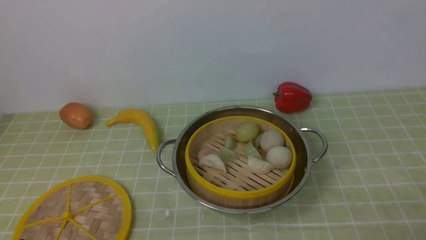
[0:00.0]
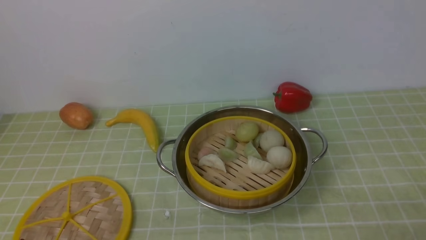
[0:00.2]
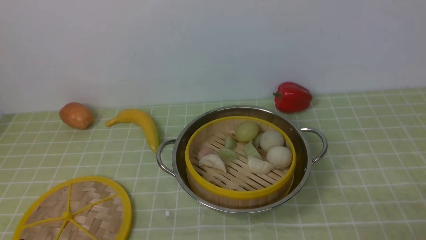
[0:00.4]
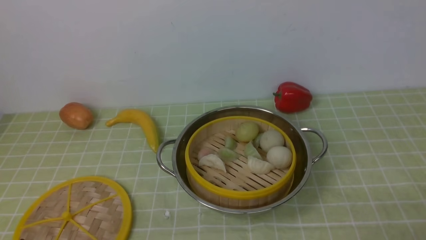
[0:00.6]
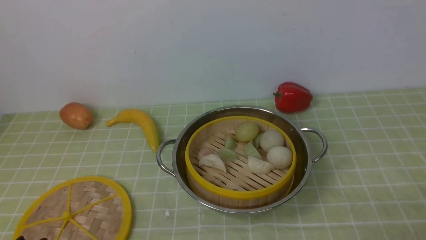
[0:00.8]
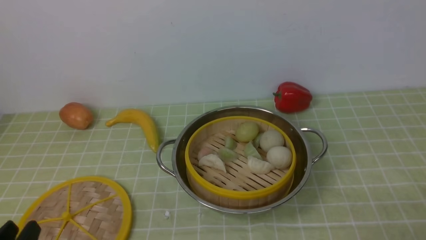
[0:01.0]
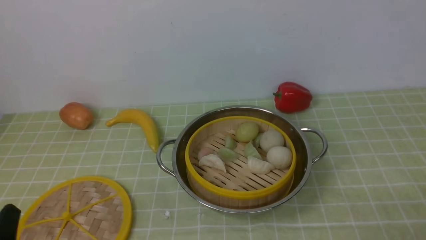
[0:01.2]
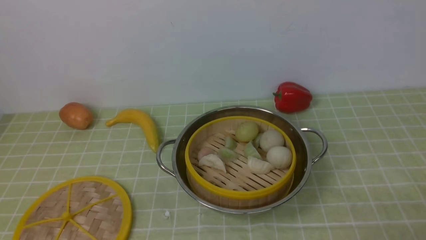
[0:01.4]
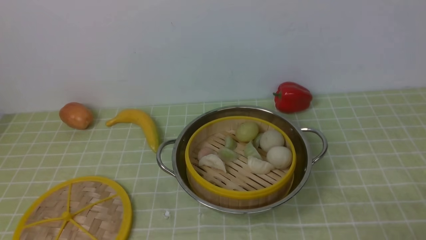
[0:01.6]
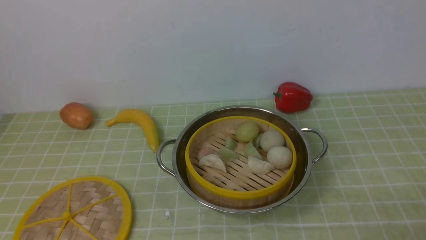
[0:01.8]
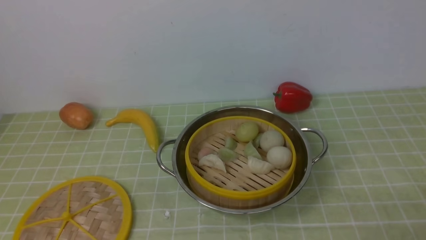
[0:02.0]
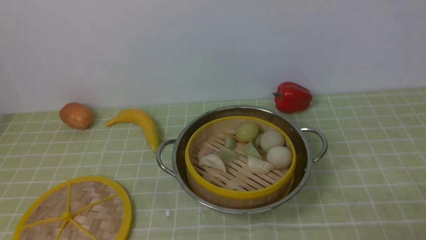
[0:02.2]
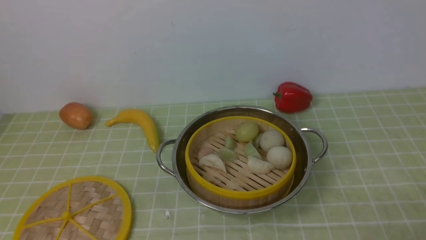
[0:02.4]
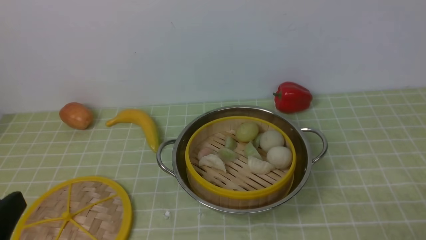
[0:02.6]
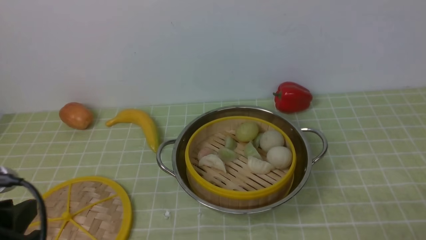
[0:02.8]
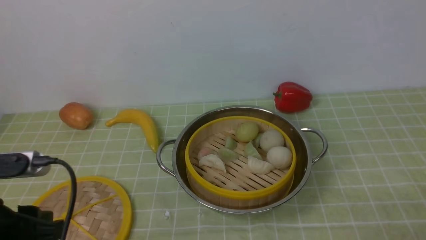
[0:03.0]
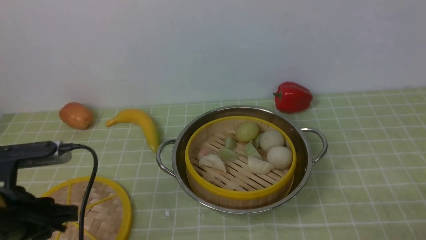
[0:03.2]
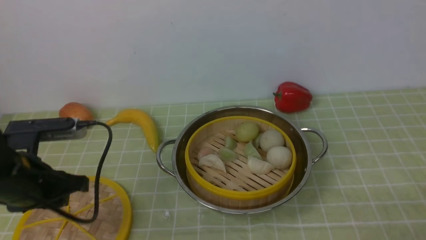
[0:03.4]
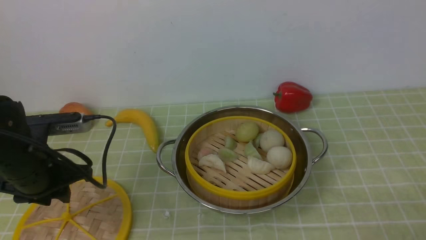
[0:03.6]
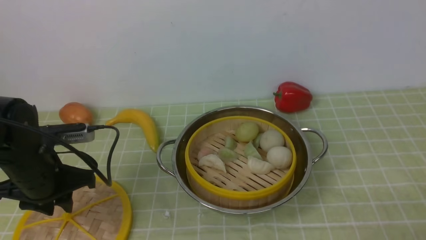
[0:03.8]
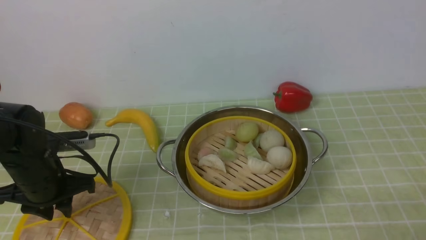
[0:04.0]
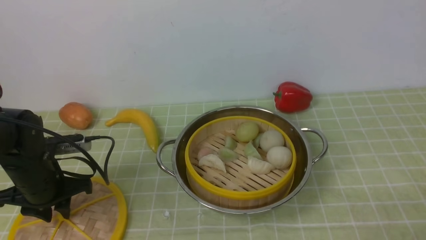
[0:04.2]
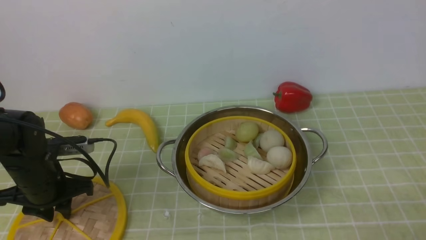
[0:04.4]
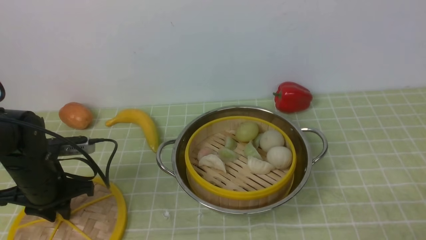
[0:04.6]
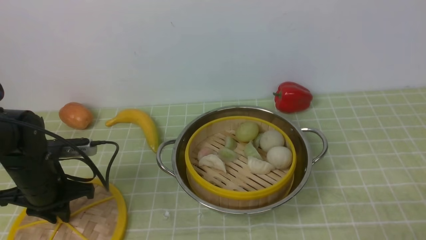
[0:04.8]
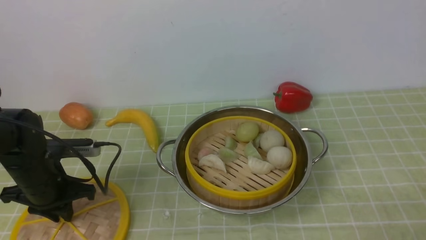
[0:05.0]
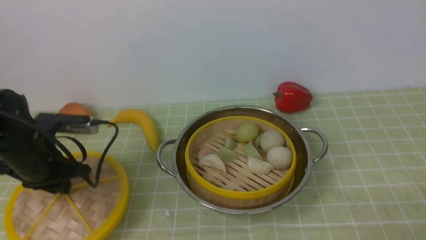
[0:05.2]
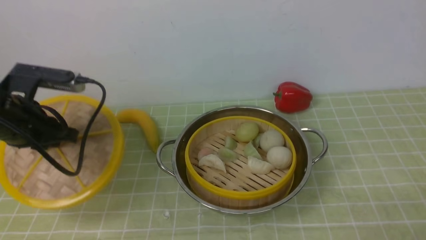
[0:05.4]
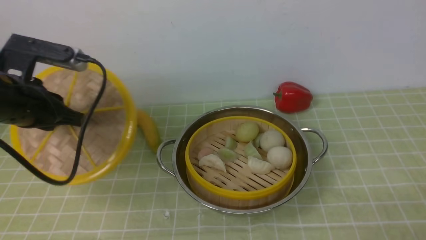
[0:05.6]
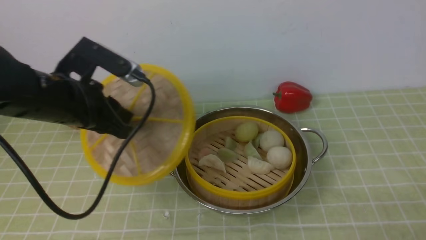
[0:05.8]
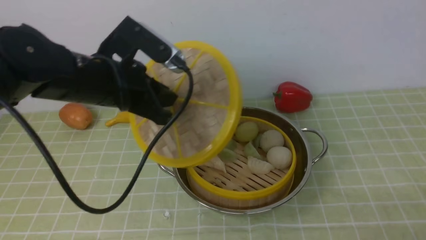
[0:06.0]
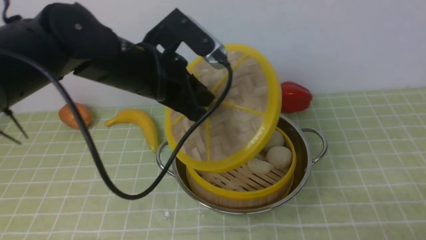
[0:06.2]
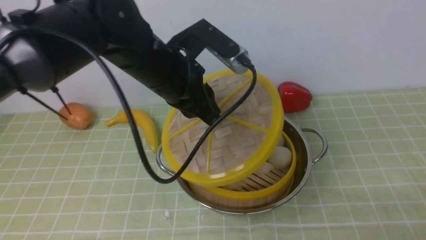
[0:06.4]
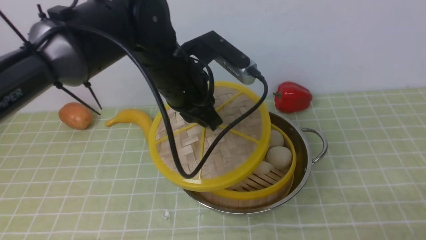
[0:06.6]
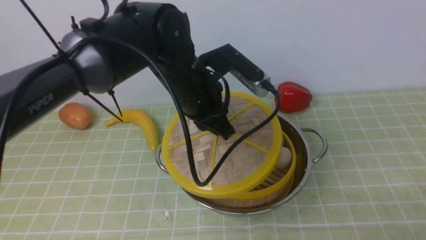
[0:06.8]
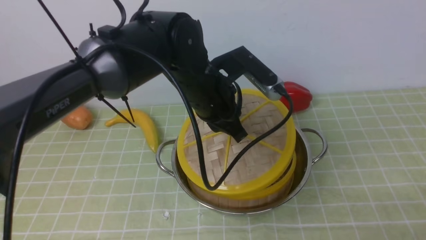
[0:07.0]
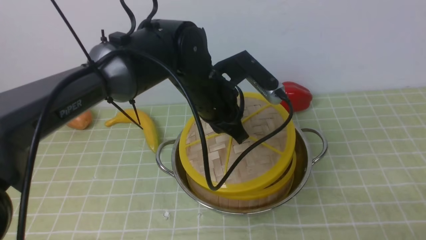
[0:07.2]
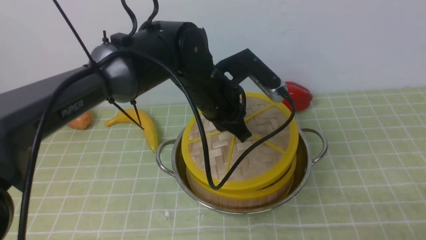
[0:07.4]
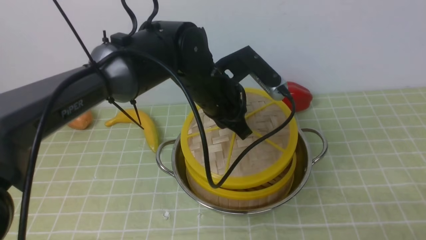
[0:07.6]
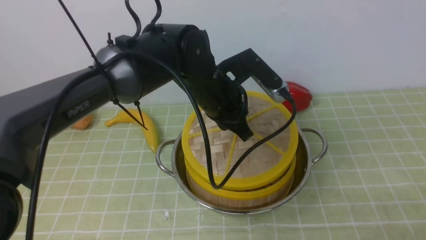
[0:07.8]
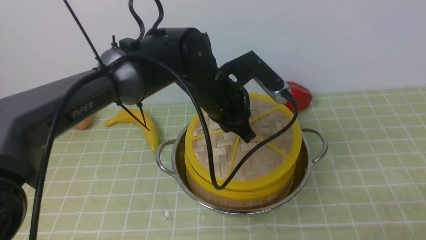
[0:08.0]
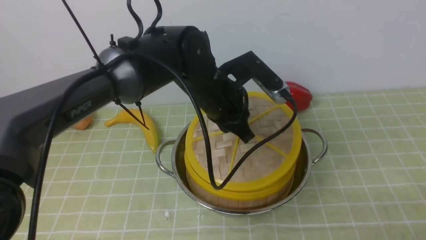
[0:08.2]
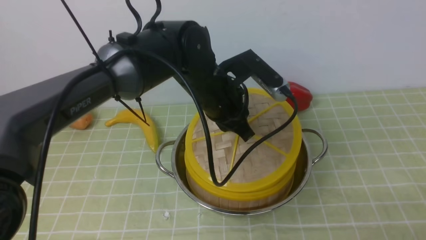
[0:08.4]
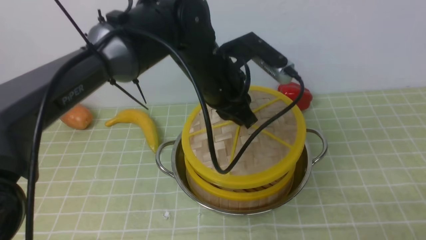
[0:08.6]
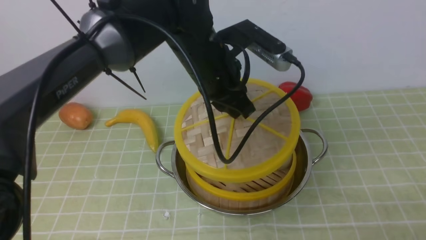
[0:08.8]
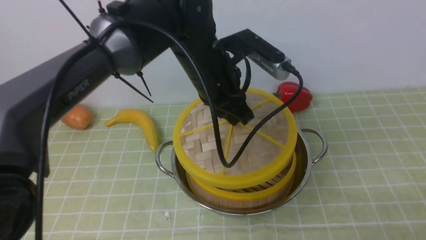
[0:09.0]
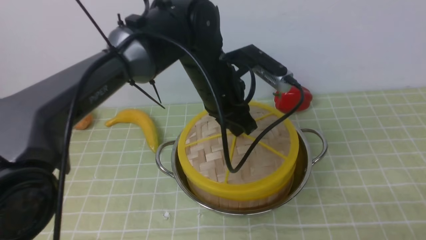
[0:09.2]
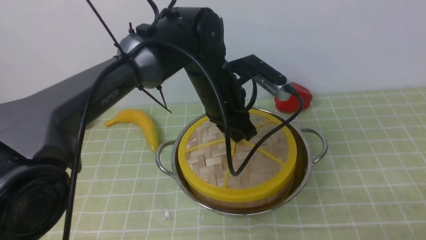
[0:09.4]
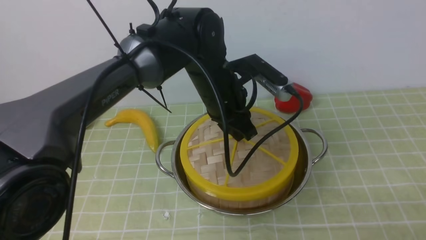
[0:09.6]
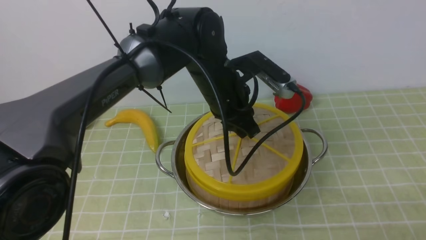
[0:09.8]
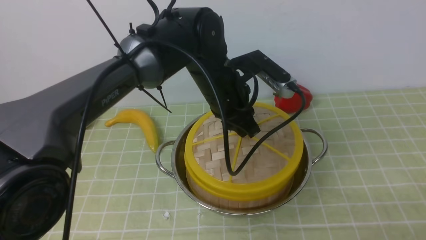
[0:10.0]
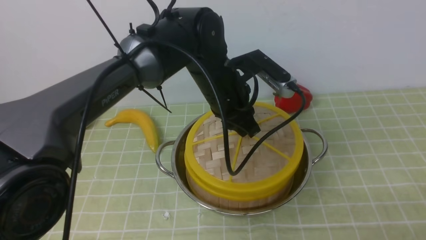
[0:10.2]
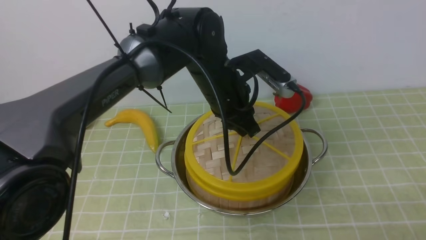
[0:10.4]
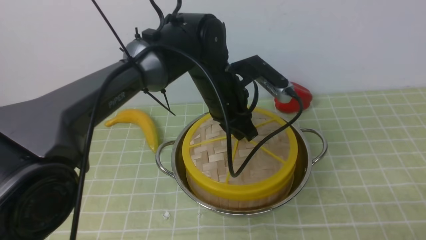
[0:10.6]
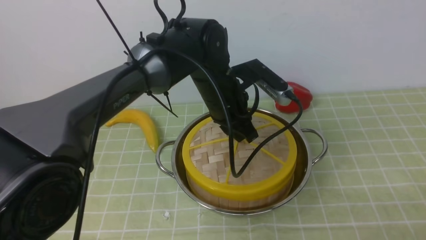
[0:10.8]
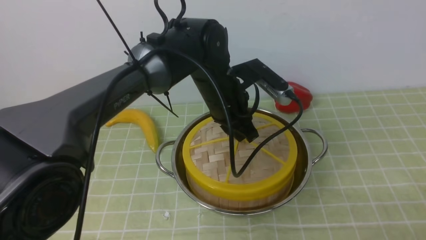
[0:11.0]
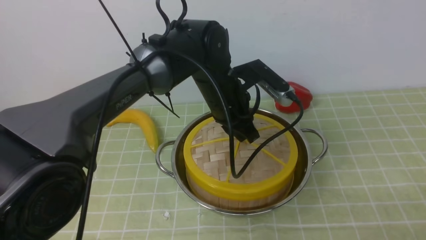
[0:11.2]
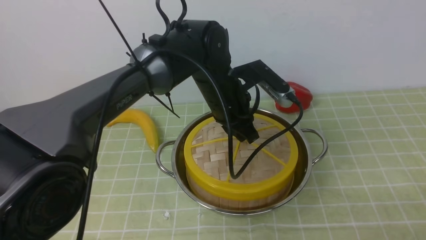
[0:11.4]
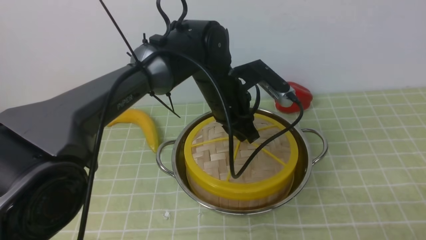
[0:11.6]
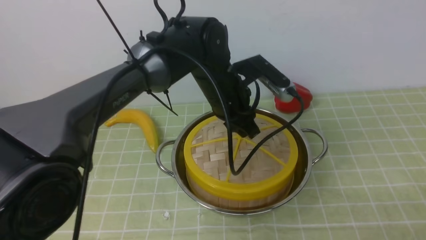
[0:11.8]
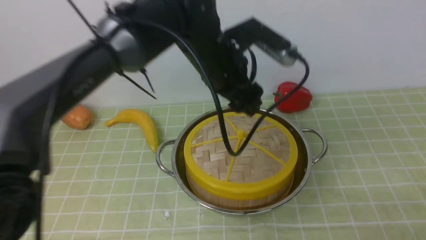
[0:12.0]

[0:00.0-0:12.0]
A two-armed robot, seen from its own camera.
Task of the whole recording: place the steamer in the pot on the green tablecloth, and put the lid on the steamer.
Step, 0:00.0 to 0:05.4: use the left arm to lift the lid of the steamer.
0:01.6 to 0:03.0: The left gripper travels forward by approximately 10 cm.
0:03.0 to 0:04.4: The left gripper heads forward and downward, covering about 20 cm.
0:04.4 to 0:06.0: The left gripper heads upward and to the right, covering about 20 cm.
0:06.0 to 0:07.6: The left gripper shifts approximately 15 cm to the right and downward.
0:10.4 to 0:12.0: The left gripper moves upward, approximately 5 cm, and opens.

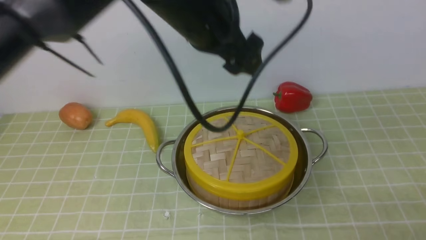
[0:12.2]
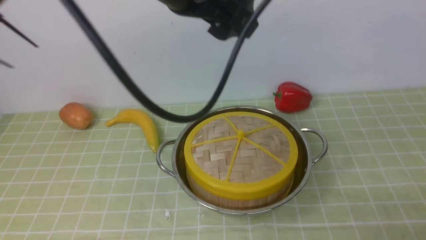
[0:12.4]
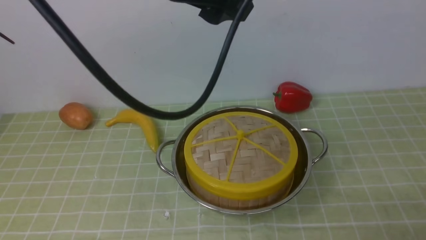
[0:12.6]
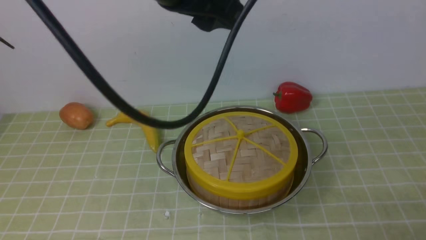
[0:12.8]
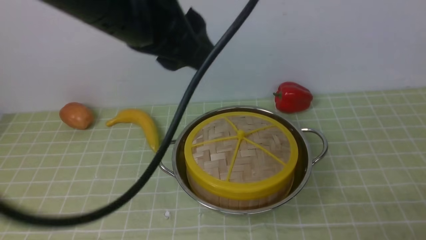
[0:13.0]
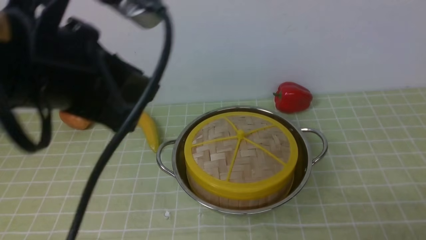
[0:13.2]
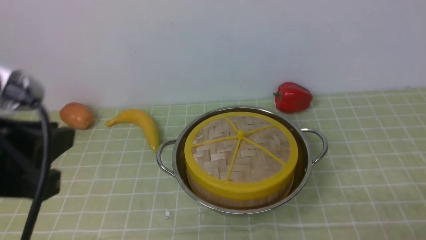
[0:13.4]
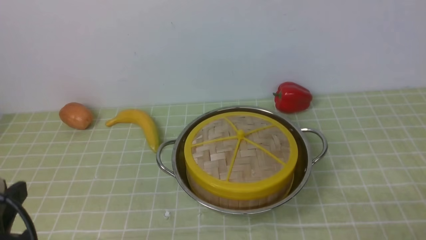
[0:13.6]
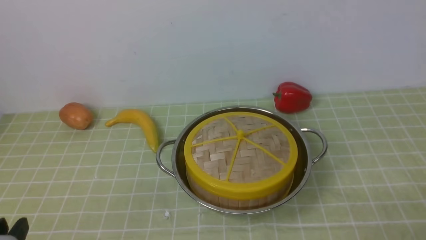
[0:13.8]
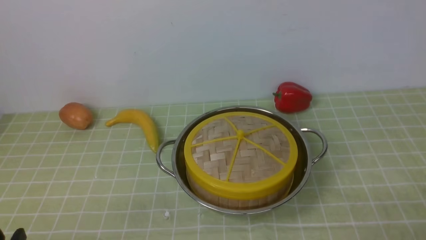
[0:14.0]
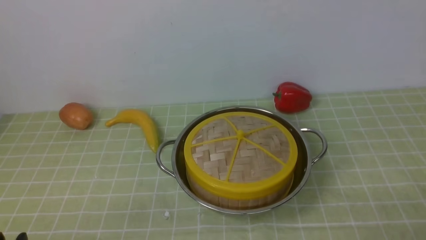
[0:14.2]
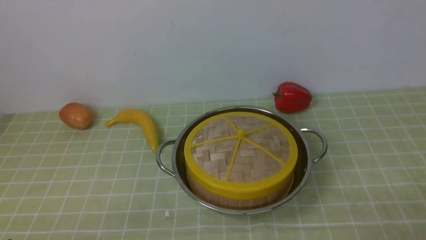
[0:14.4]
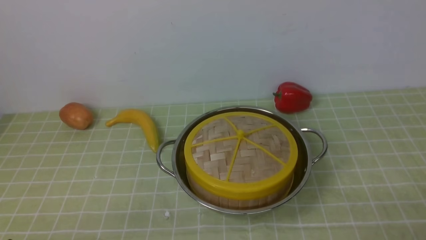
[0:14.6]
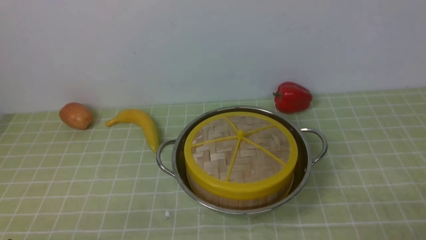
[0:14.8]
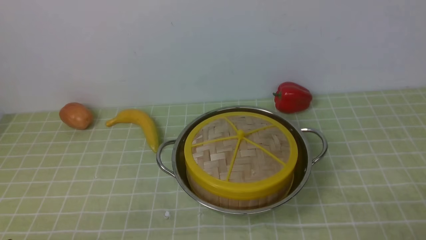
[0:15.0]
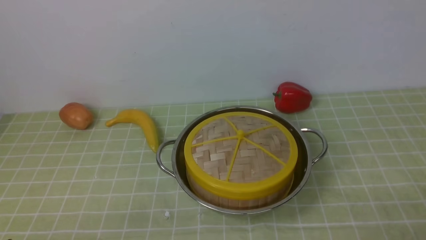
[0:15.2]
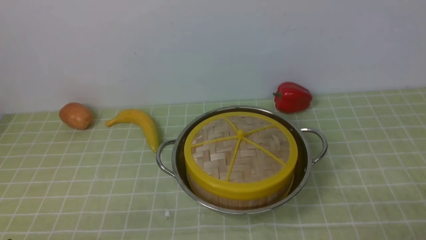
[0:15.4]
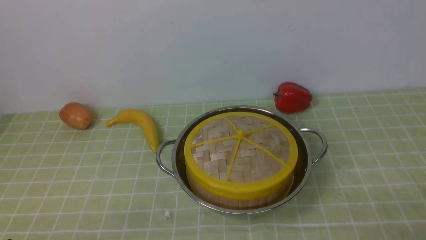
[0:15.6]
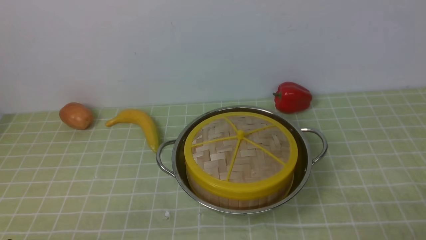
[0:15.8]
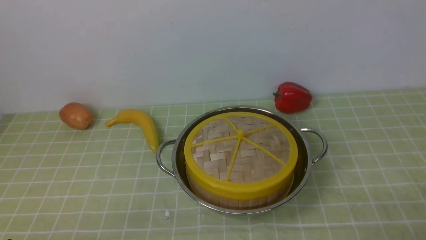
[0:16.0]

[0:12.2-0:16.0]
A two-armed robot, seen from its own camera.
Task of the whole recording: place the steamer in the pot on the green tablecloth, and put the lid on the steamer.
0:12.2 to 0:13.4: The left gripper is displaced backward and to the left by some 30 cm, and closes.
0:13.4 to 0:14.8: The left gripper heads downward and backward, covering approximately 20 cm.
0:14.8 to 0:16.0: Neither gripper changes place.
